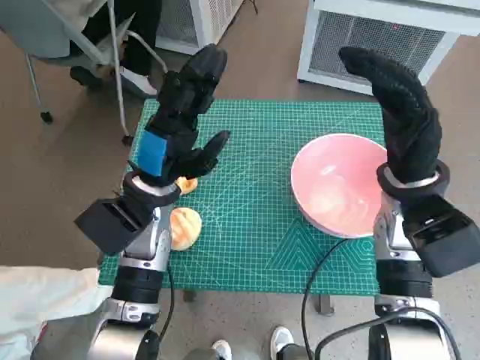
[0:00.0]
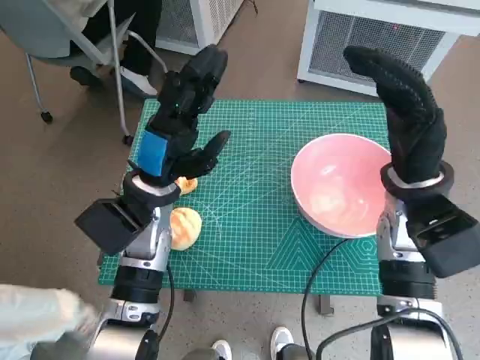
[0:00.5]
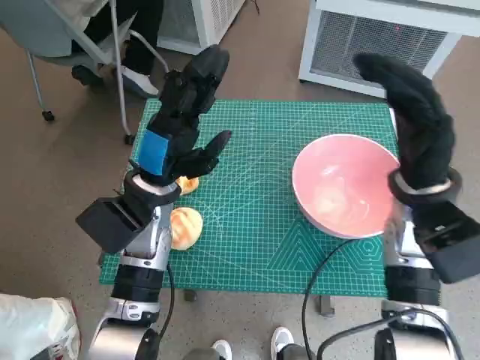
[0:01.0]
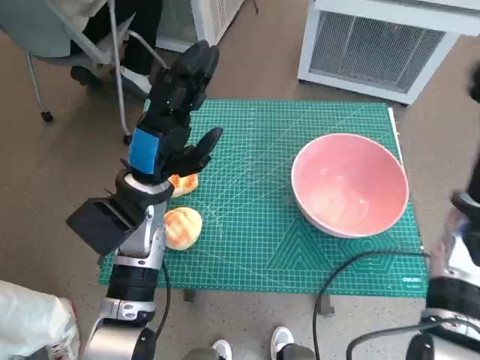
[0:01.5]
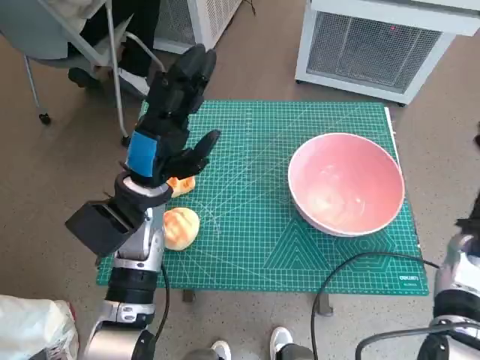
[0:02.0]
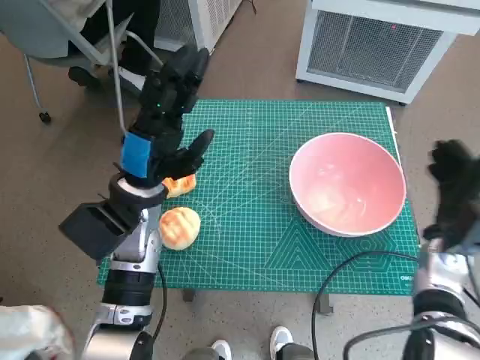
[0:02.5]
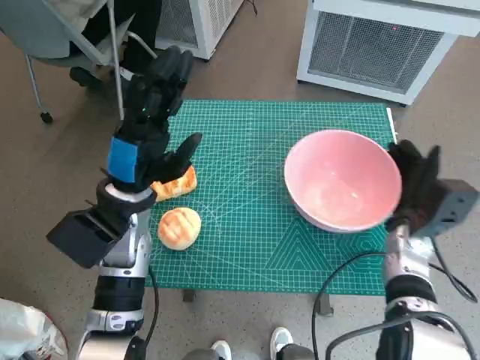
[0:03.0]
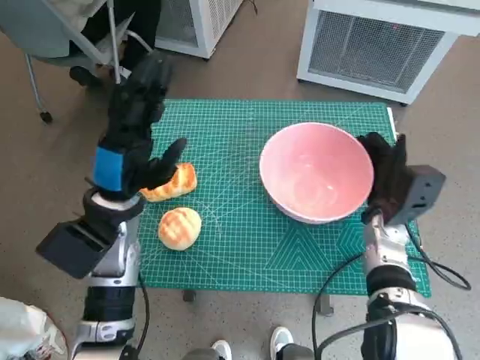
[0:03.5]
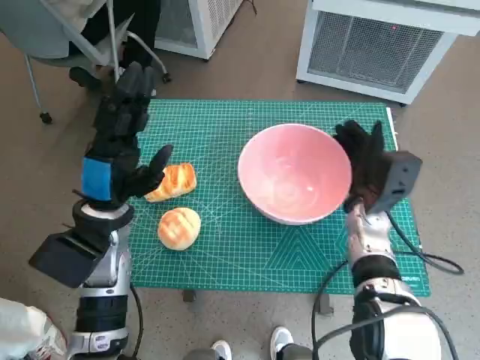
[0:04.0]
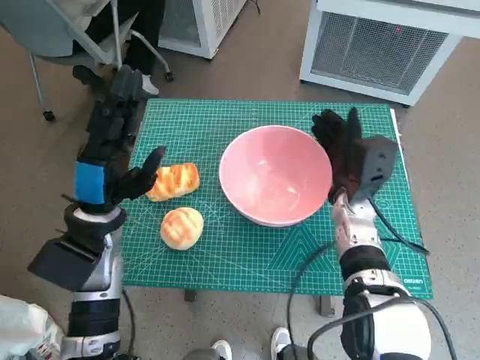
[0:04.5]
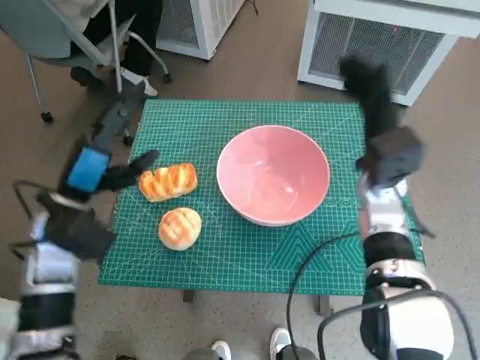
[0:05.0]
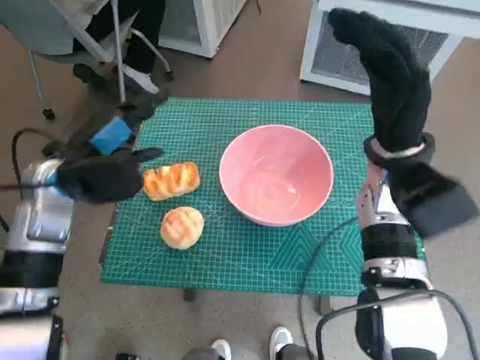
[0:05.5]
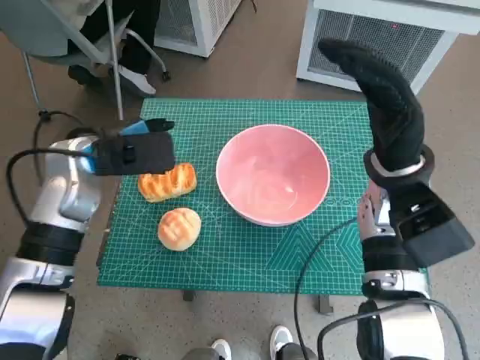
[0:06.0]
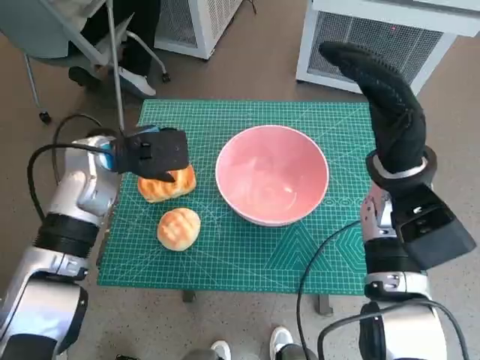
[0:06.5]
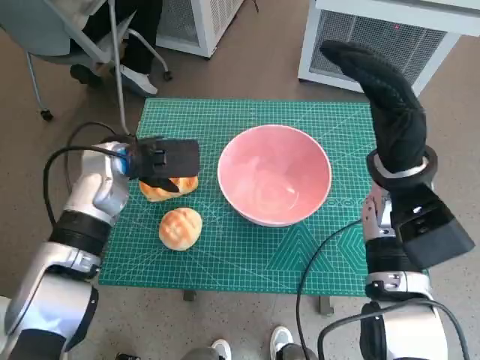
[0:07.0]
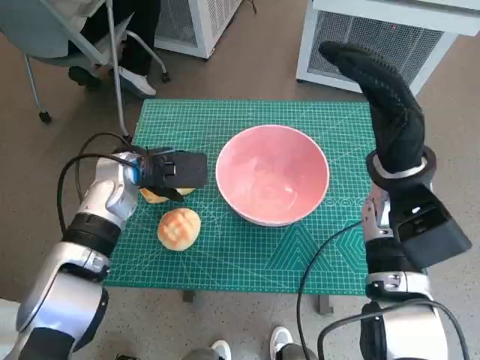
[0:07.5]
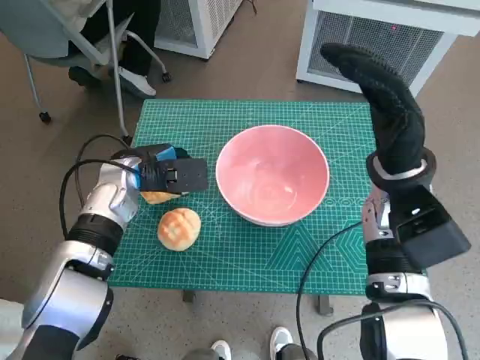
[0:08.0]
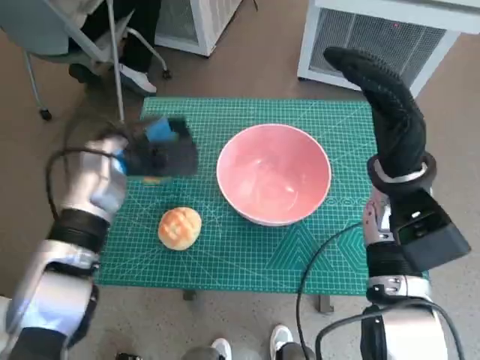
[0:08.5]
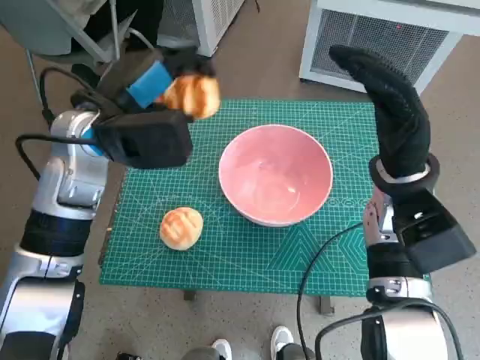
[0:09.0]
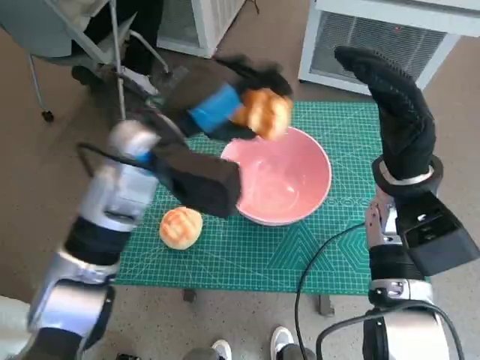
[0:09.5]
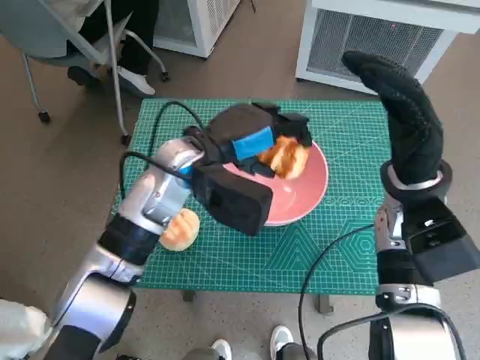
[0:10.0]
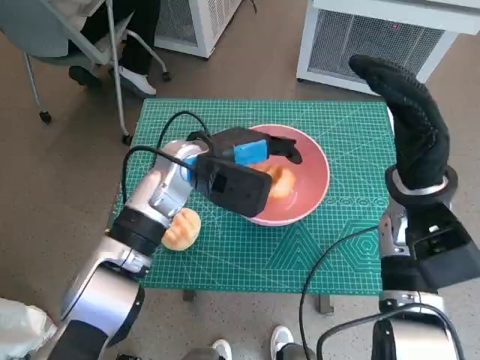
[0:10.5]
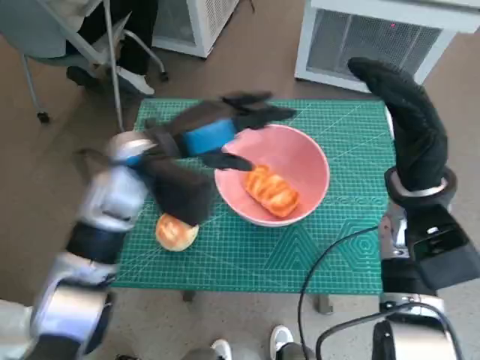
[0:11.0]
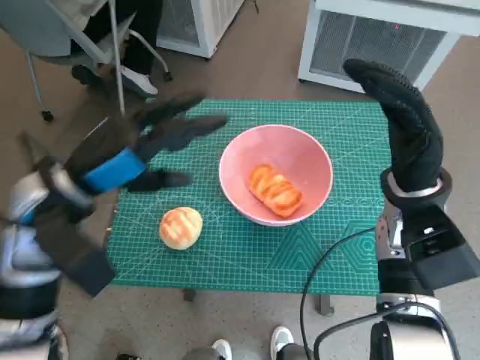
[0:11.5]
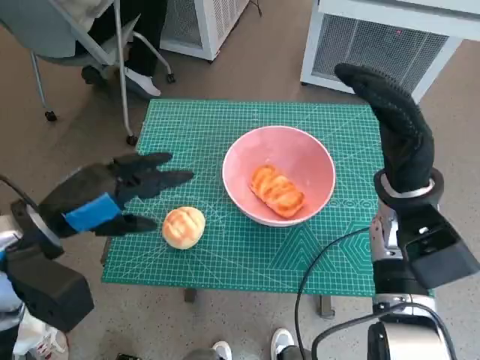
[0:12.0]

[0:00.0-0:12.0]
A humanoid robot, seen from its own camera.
Task of the whole recording: Push the bowl to the center of the table and put the bread into the bowl.
Step, 0.0 to 4.5 s: Move the pink bowl to the center of table with right hand.
Step, 5.0 to 8.0 s: Grasp the long bread with left hand.
Step, 8.5 to 10.5 s: Place the long bread in pink bowl with left hand.
2.0 to 4.0 s: The right hand shifts roughly 15 cm to the left. The left hand ends up approximately 5 cm from where it was.
4.0 to 6.0 s: The left hand travels forward and upward by about 10 cm. Meanwhile the right hand goes roughly 10 cm upward.
6.0 to 8.0 s: The left hand shifts approximately 5 cm downward.
8.0 to 10.0 s: The left hand heads to the right and upward, covering roughly 15 cm.
10.0 to 12.0 s: The left hand shifts some 20 cm to the left and backward.

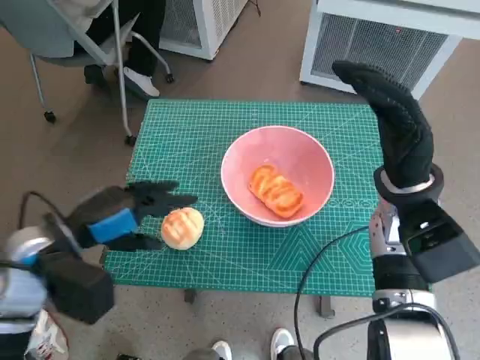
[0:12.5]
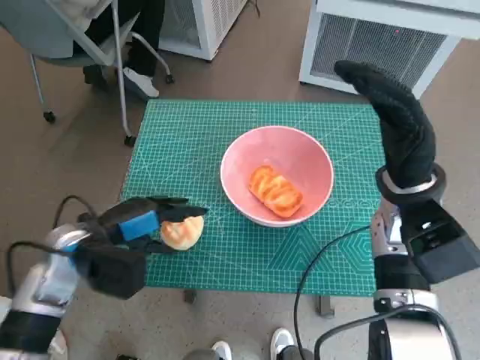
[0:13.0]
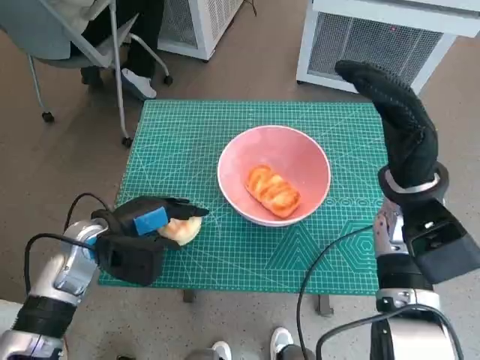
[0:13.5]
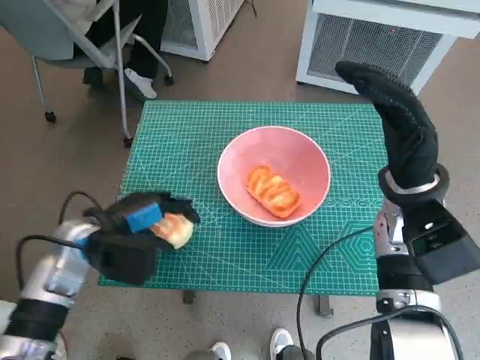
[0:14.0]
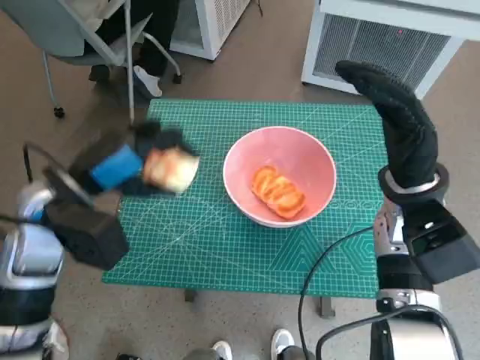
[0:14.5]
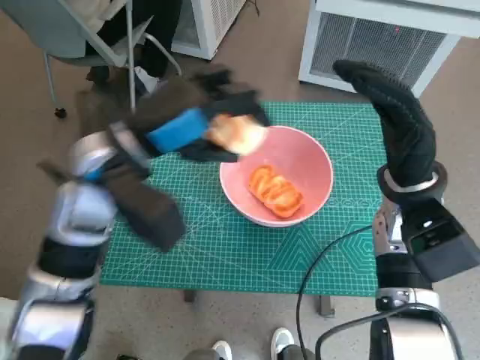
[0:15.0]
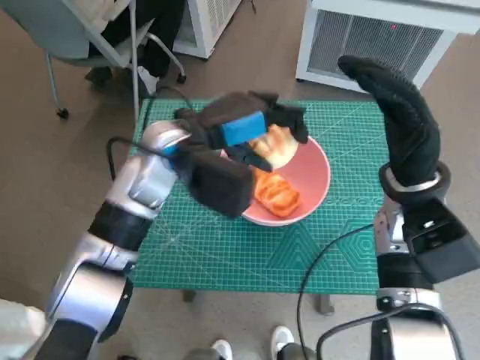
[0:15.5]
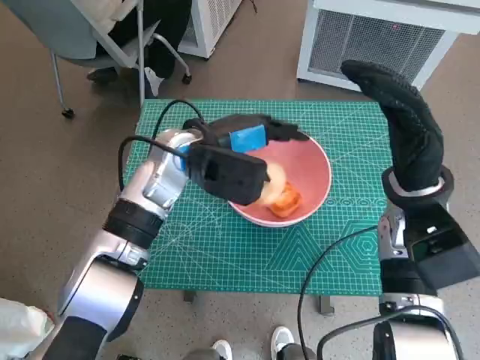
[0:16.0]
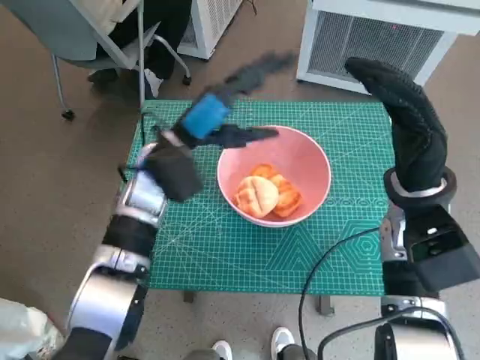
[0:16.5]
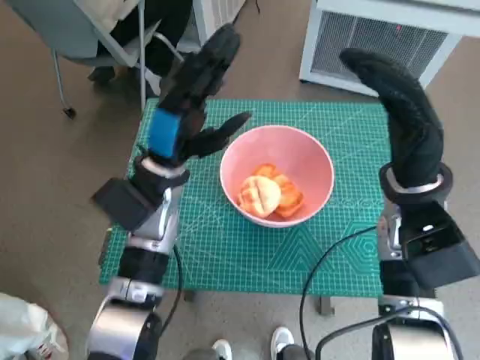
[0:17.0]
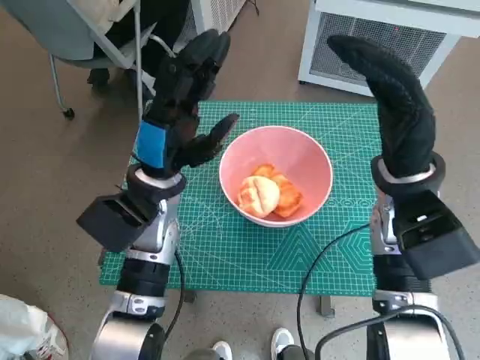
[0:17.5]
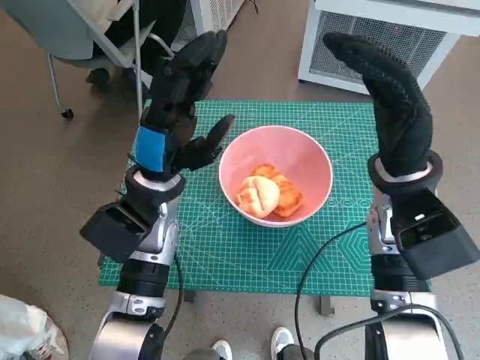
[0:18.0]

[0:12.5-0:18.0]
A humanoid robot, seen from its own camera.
Task of the whole recording: Push the bowl to the center of the table and put the bread into the bowl.
Step, 14.0 to 16.0 s: Place the round bread in pink bowl with left hand.
12.5 to 14.5 s: The left hand goes downward and returns, some 5 cm each way.
14.5 to 16.0 s: The left hand goes about 15 cm to the right and forward.
16.0 to 18.0 s: The left hand moves backward, some 5 cm.

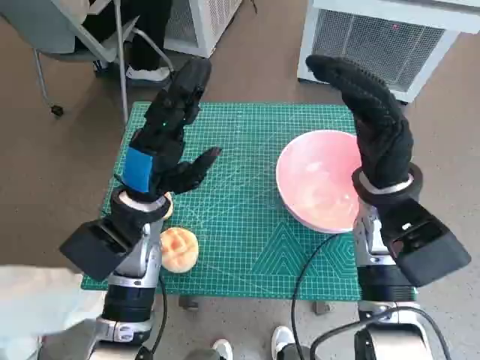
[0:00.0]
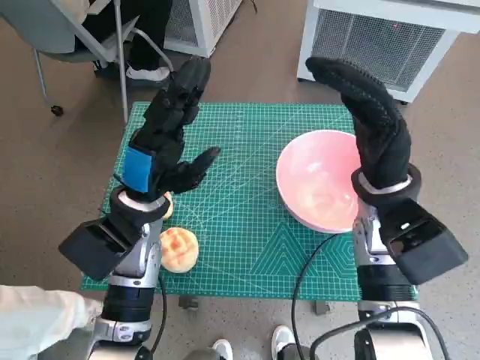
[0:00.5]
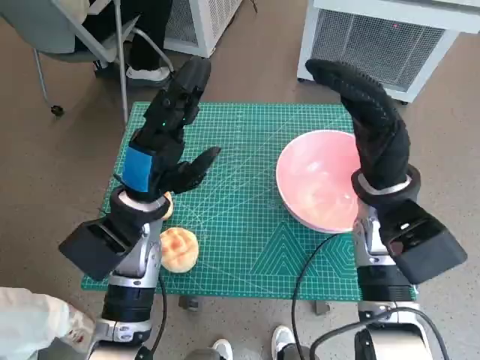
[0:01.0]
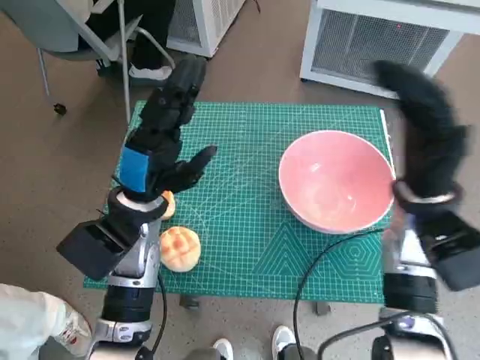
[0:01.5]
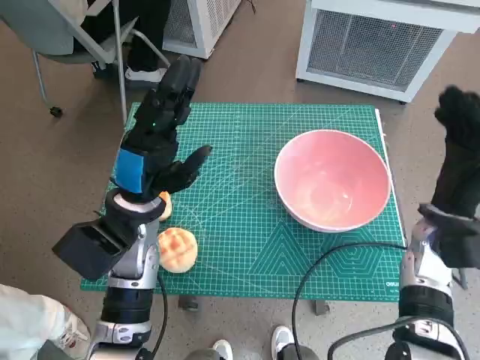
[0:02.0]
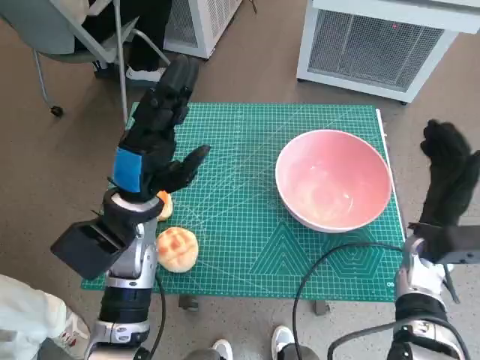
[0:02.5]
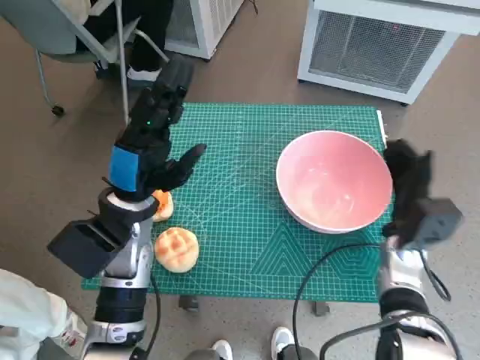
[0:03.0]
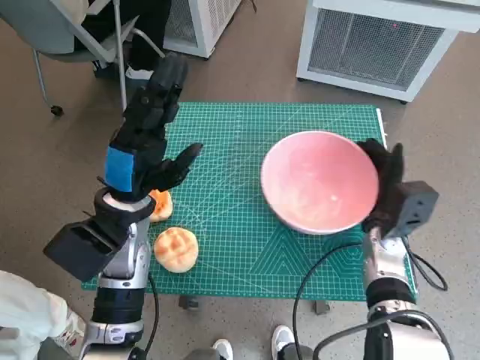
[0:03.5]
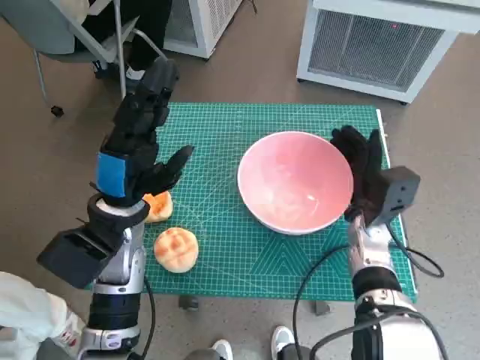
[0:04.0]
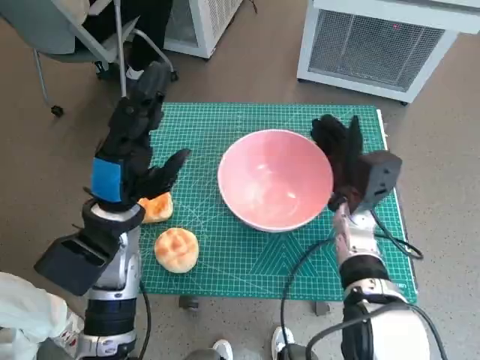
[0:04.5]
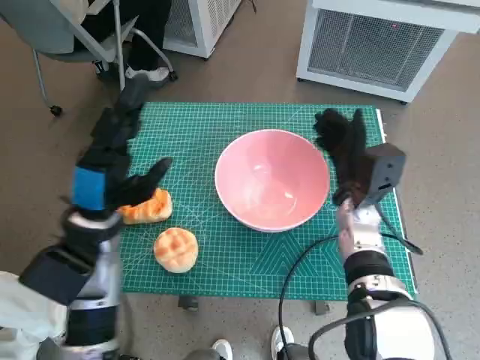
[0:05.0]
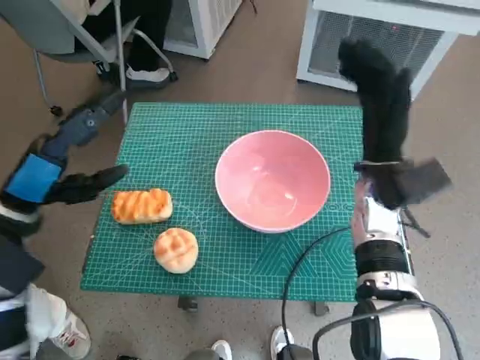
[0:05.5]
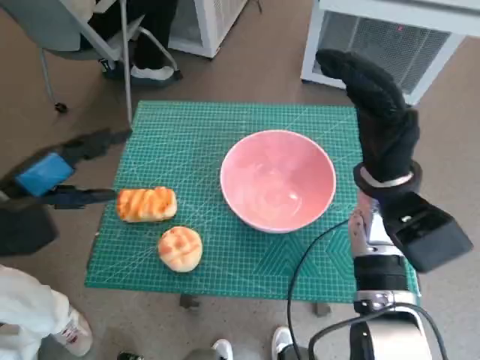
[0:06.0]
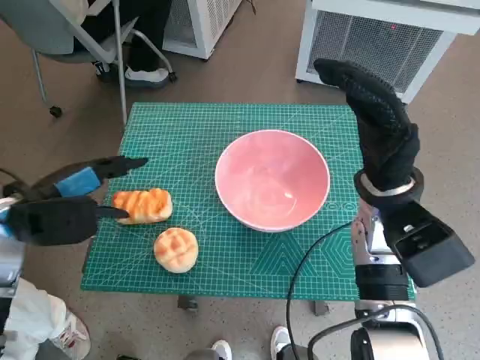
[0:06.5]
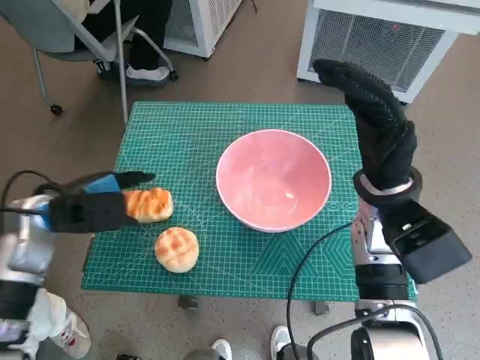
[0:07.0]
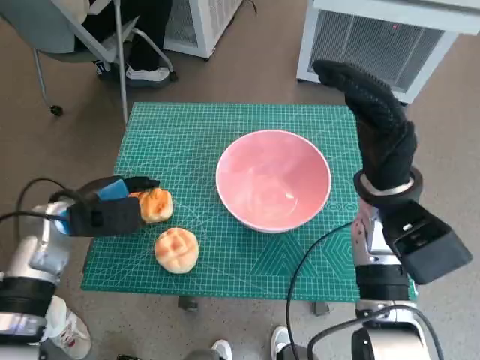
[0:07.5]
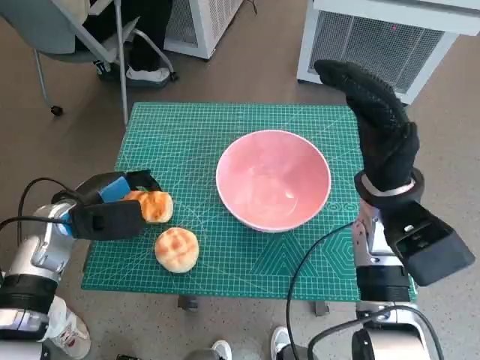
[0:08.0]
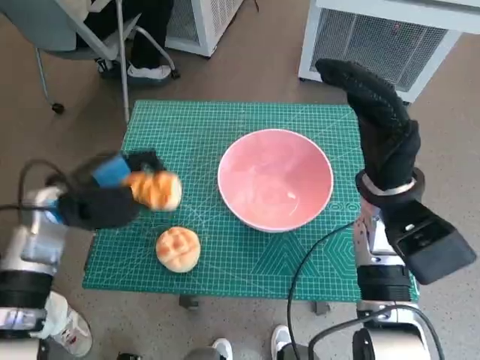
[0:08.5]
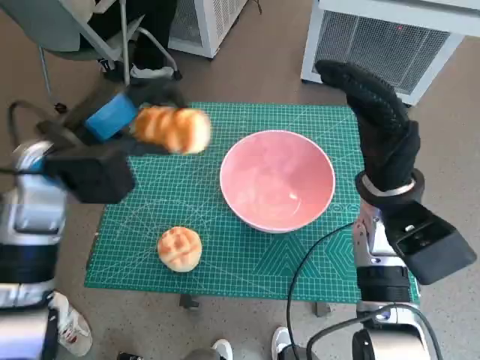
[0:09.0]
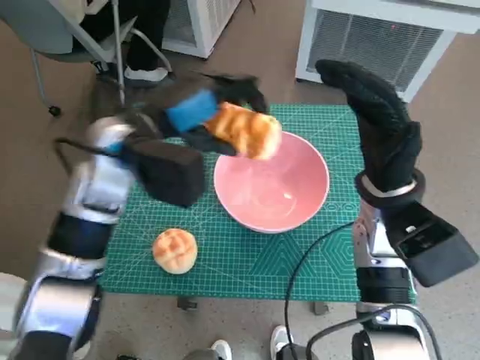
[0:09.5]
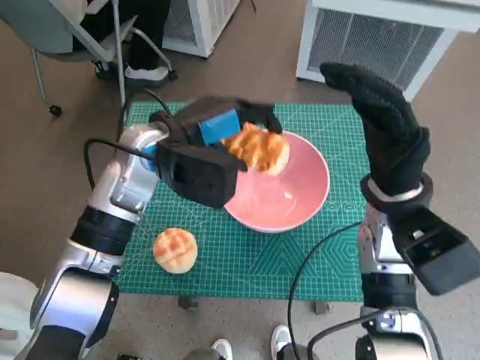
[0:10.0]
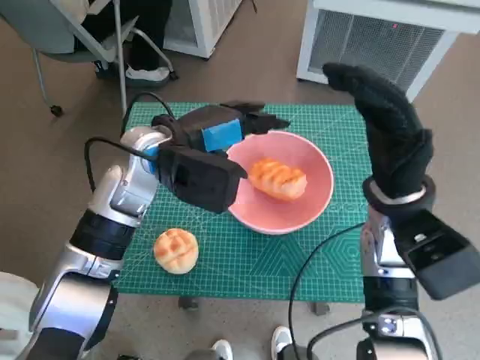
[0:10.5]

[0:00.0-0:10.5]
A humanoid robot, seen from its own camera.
Task of the whole recording: Push the bowl to the center of the table and put the bread into the bowl.
Step, 0.0 to 5.0 s: Move the pink bowl to the center of table with right hand.
Step, 5.5 to 7.5 s: Grasp the long bread with left hand.
Step, 8.0 to 10.0 s: Place the long bread in pink bowl with left hand.
2.0 to 4.0 s: The right hand moves to the left and downward, about 10 cm.
4.0 to 6.5 s: The right hand travels upward by roughly 10 cm, while the left hand shifts about 10 cm to the left.
6.5 to 8.5 s: The left hand changes place by some 5 cm.
8.5 to 10.5 s: The left hand heads to the right and upward, covering some 15 cm.
